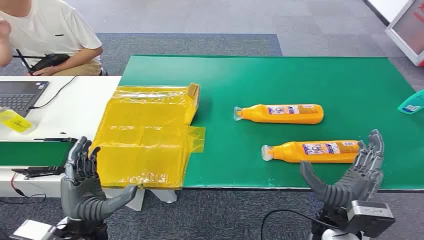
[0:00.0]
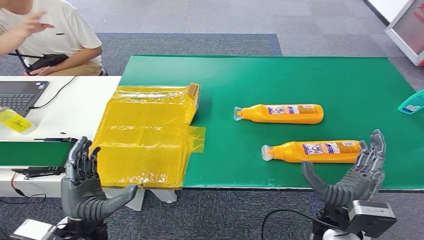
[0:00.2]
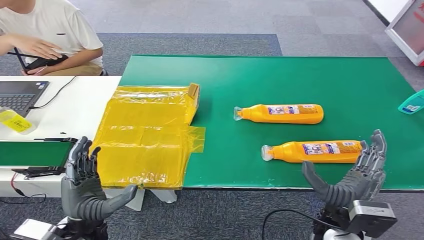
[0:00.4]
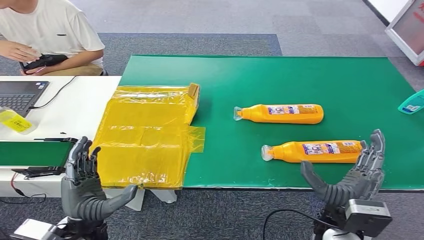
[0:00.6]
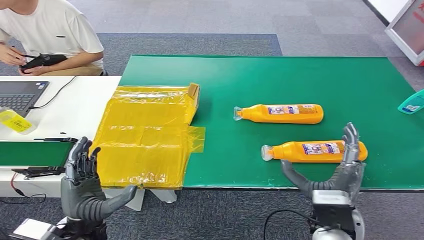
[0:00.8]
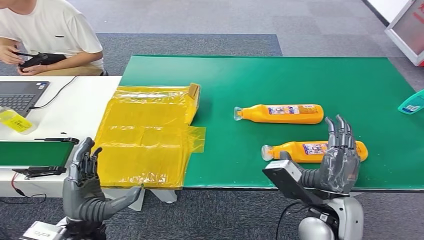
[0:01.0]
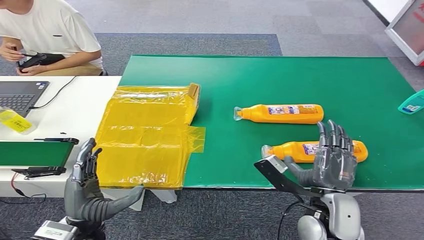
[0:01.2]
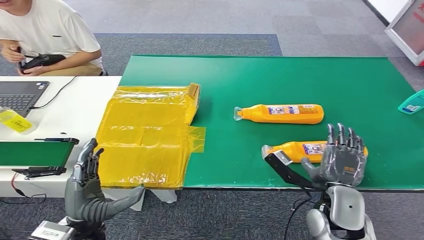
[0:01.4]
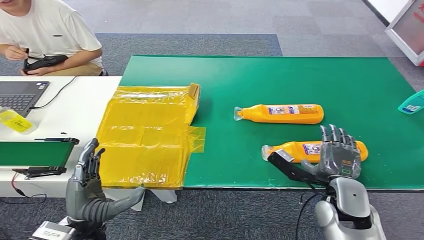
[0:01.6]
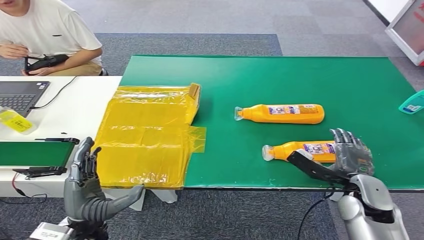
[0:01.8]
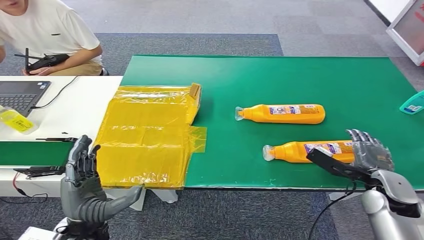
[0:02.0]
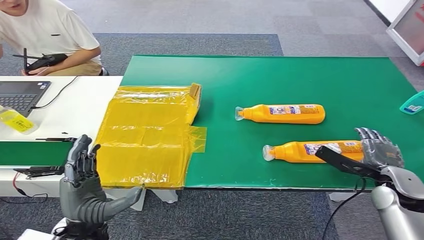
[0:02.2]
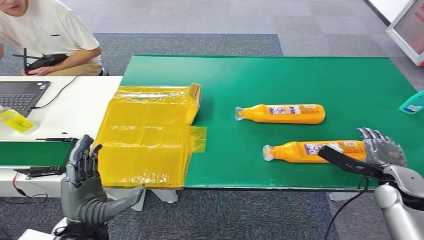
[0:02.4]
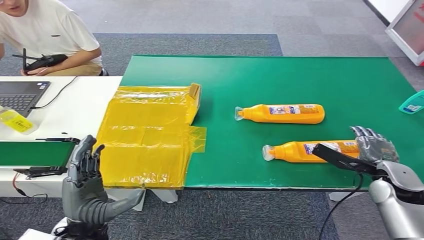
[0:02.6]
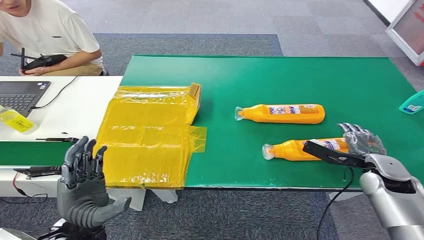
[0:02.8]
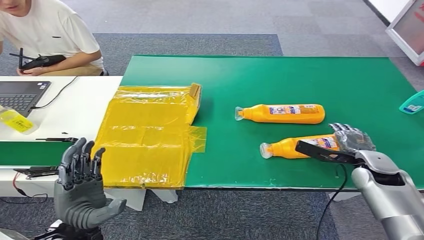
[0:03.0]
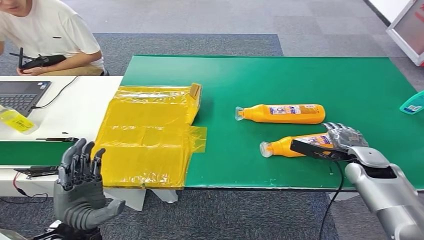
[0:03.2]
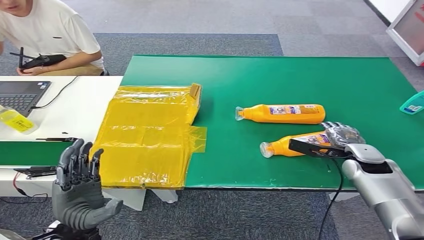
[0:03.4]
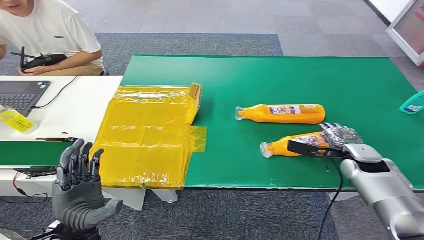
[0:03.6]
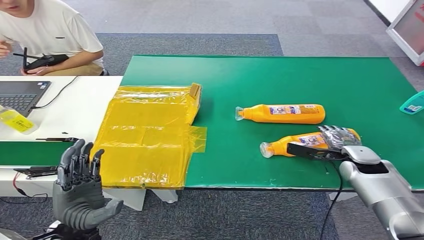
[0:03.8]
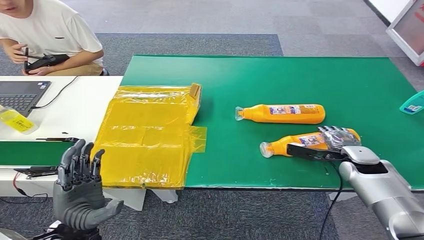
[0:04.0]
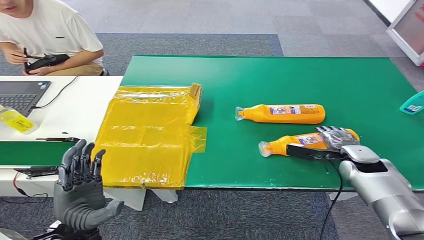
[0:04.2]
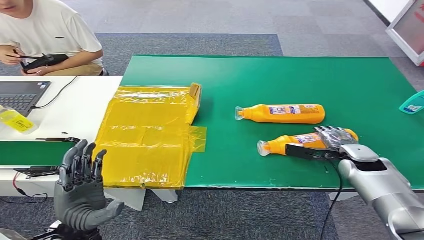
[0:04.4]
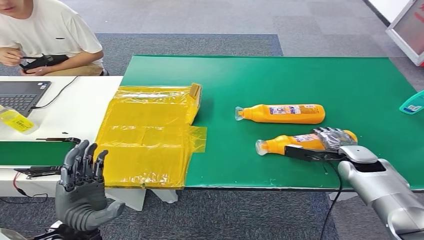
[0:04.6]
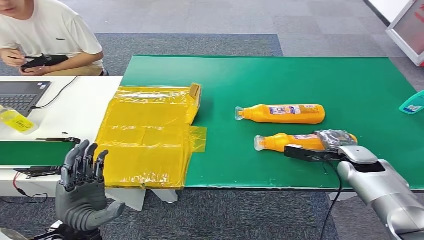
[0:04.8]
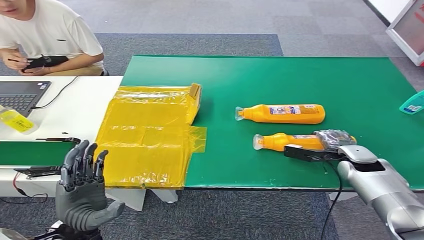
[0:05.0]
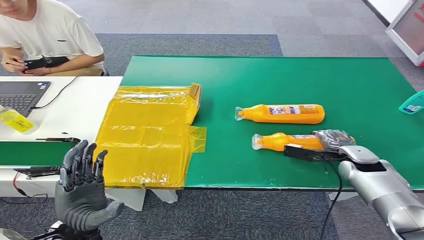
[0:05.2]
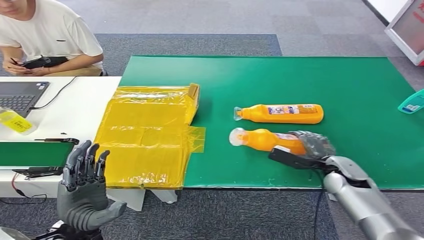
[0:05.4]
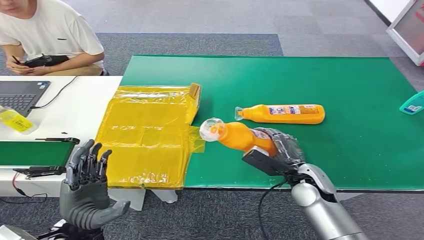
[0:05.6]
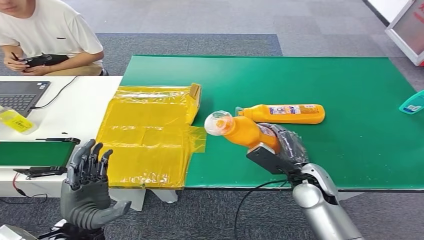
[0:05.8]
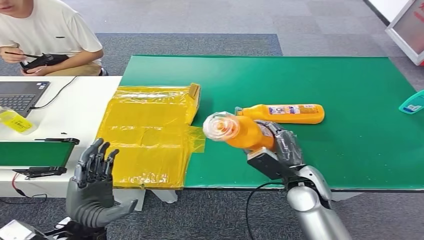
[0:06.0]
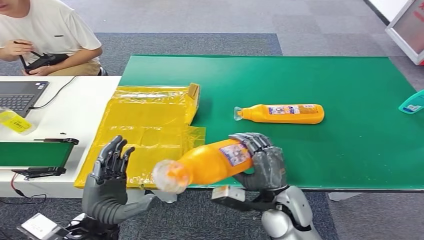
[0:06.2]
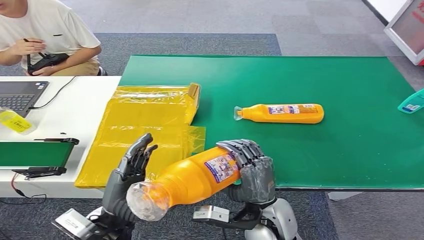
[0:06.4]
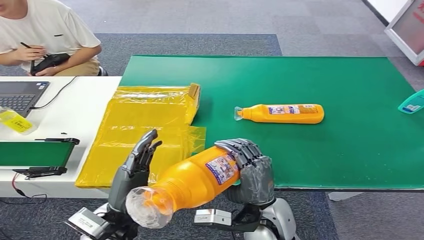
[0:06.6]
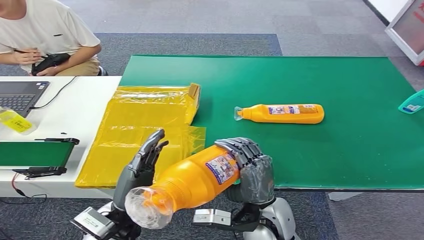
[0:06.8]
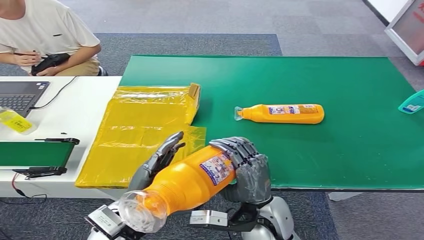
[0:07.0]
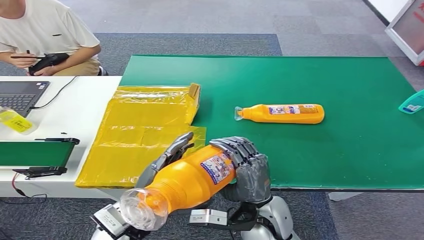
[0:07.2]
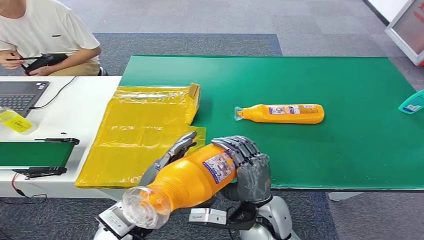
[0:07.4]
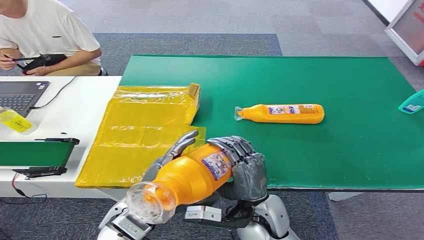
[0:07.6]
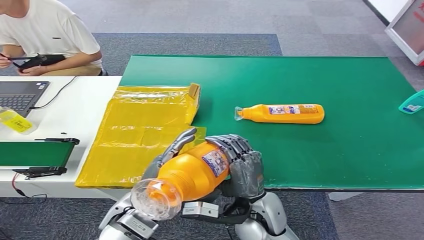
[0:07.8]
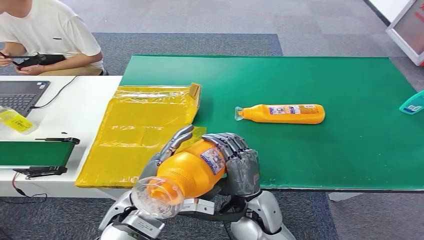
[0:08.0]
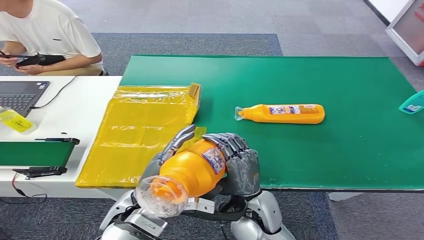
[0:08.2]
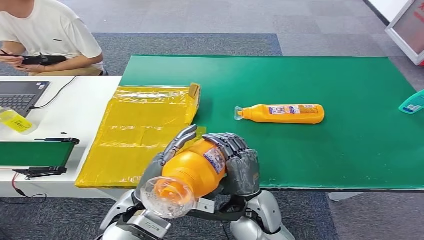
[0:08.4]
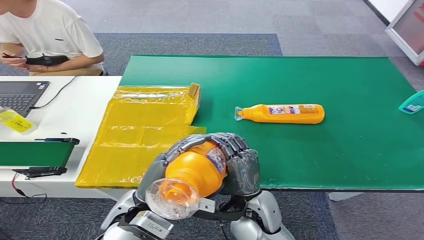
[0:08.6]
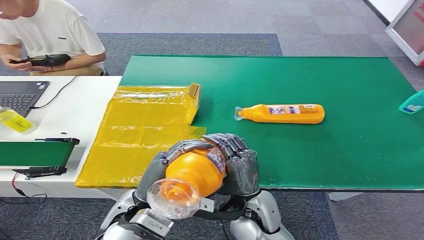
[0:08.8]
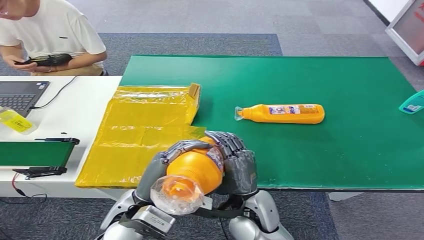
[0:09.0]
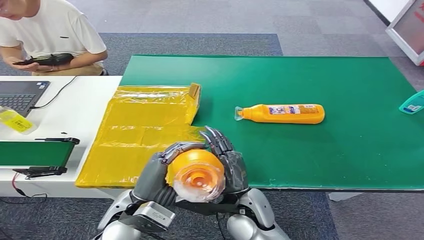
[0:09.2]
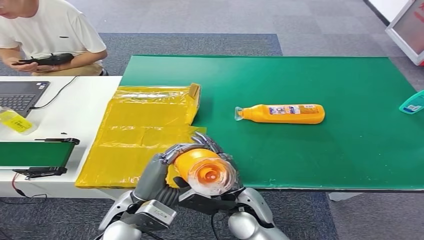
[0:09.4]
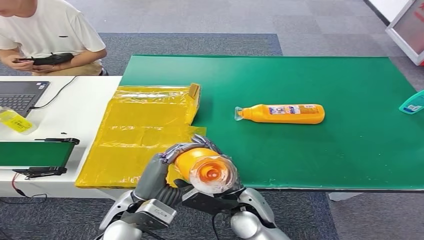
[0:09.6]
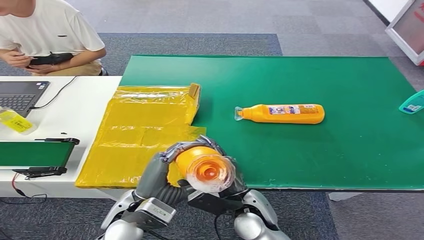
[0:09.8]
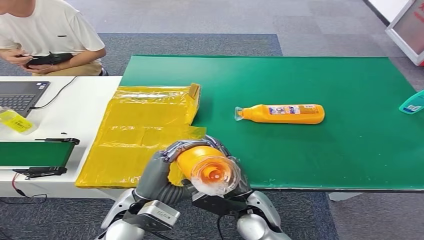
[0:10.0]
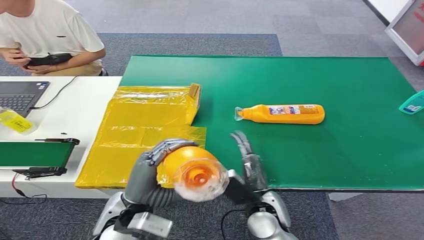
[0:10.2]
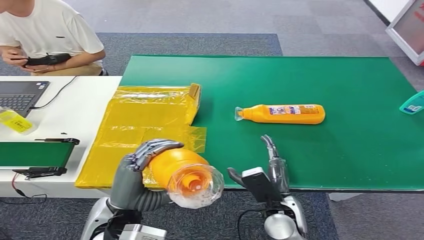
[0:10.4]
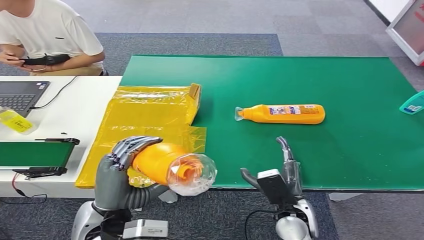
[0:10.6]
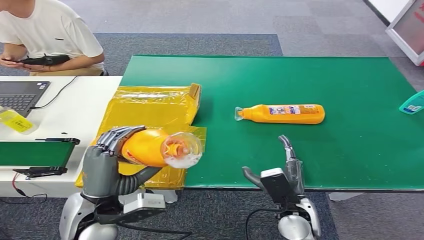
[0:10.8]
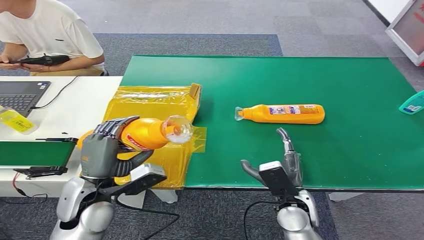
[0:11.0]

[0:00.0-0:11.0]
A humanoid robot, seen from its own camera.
Step, 0:00.0 to 0:05.8: Pick up the bottle from the table.
0:01.6 to 0:03.2: The right hand moves forward and to the right, roughly 15 cm.
0:03.2 to 0:04.8: The hands make only small movements.
0:06.2 to 0:07.8: The left hand moves to the right, some 5 cm, while the right hand goes approximately 5 cm to the left.

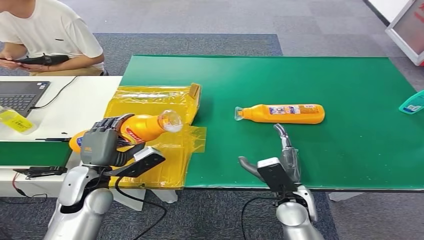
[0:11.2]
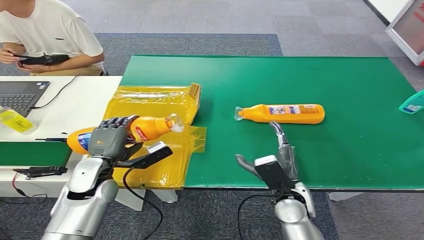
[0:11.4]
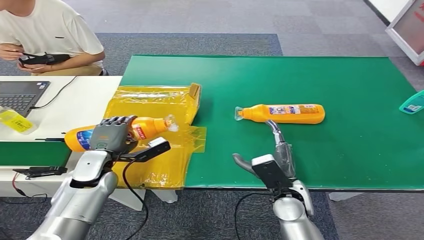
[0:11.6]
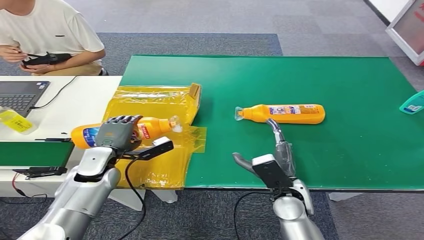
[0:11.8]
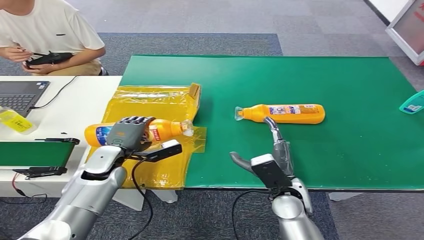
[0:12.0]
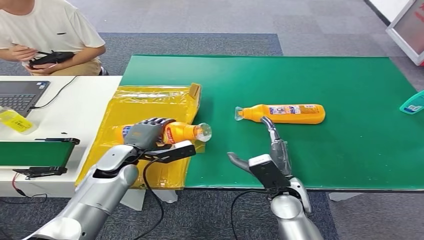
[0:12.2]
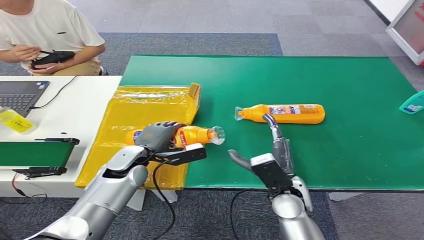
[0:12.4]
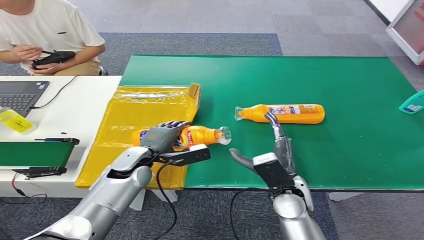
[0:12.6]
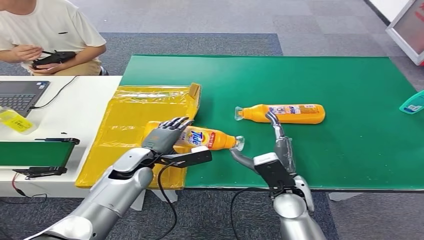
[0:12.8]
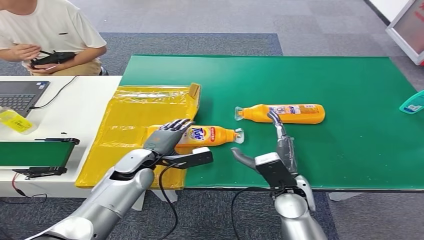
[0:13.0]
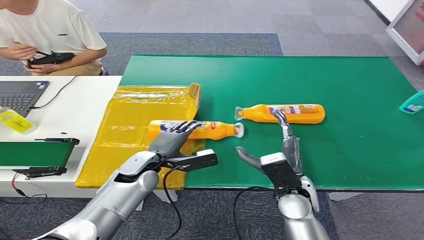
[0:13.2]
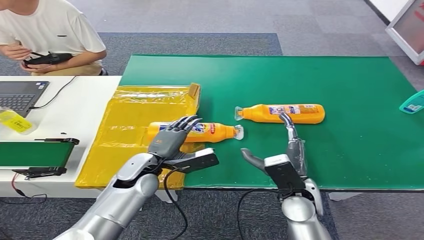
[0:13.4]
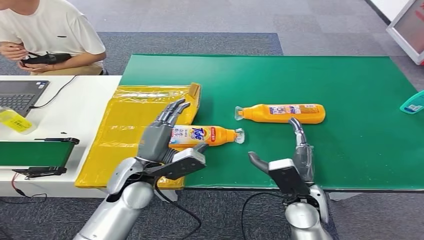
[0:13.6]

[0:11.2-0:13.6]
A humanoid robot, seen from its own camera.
Step, 0:11.2 to 0:13.6: Turn the bottle to the front side.
0:11.2 to 0:12.4: The left hand moves forward and to the right, about 10 cm.
0:12.4 to 0:13.6: The left hand shifts some 5 cm backward.
